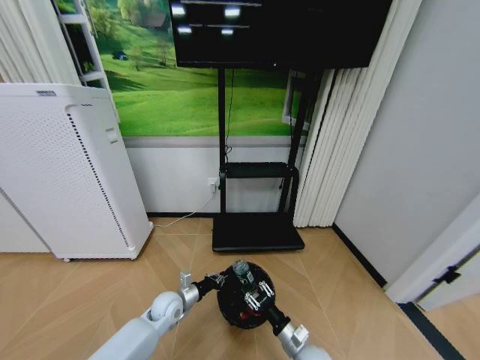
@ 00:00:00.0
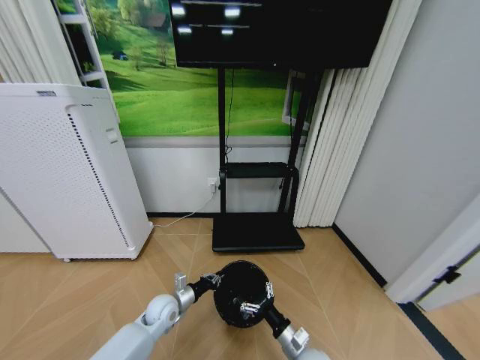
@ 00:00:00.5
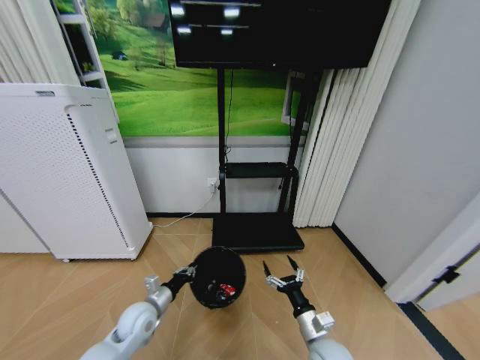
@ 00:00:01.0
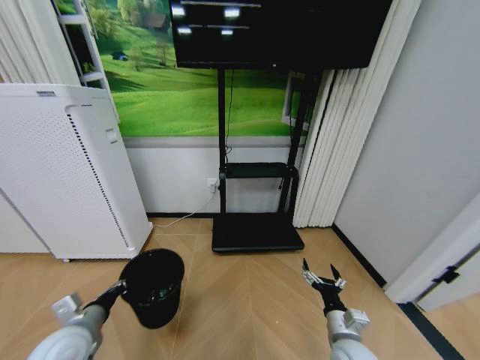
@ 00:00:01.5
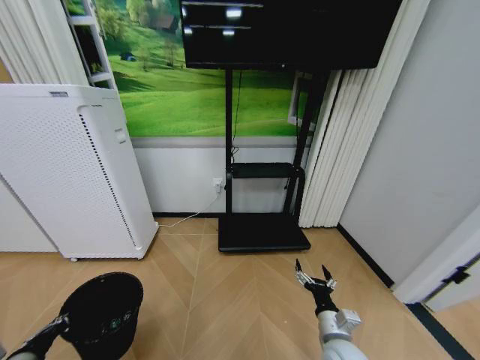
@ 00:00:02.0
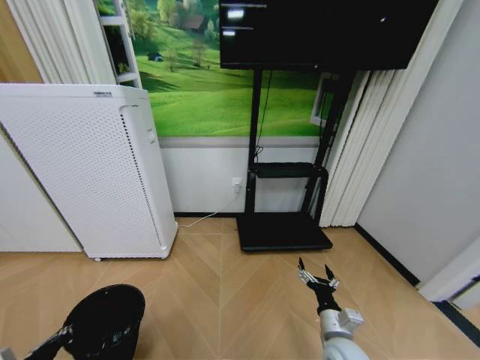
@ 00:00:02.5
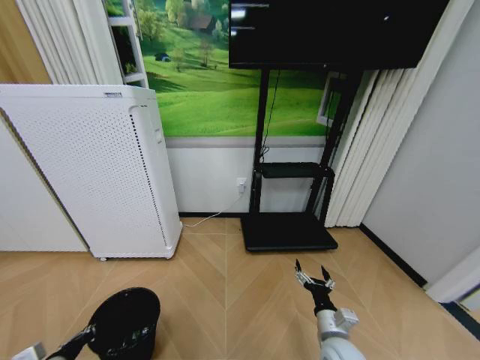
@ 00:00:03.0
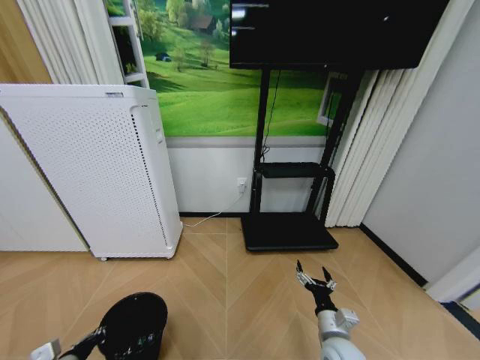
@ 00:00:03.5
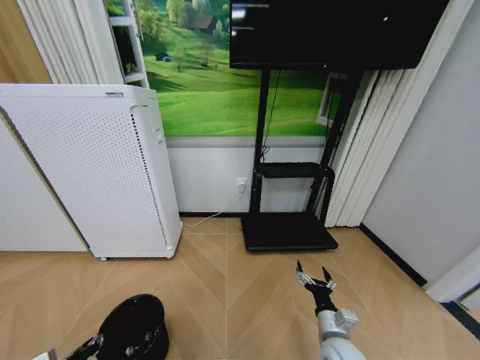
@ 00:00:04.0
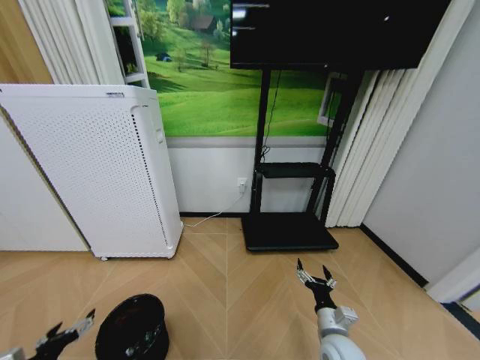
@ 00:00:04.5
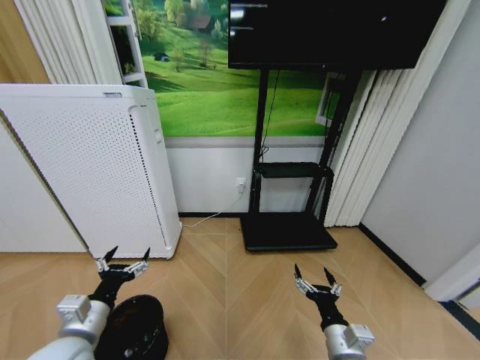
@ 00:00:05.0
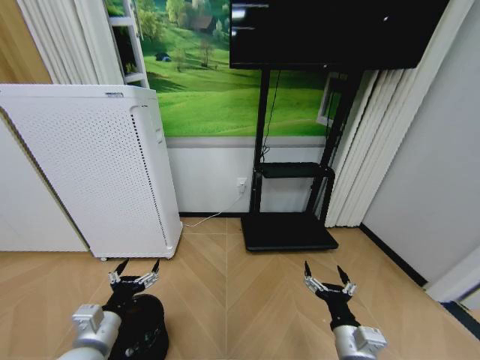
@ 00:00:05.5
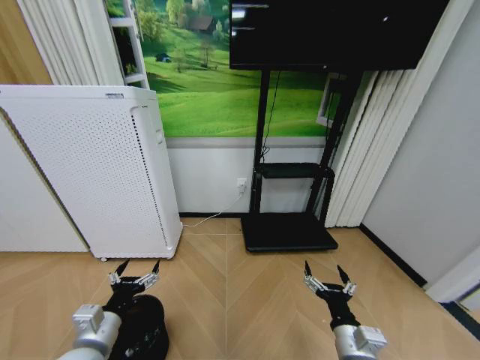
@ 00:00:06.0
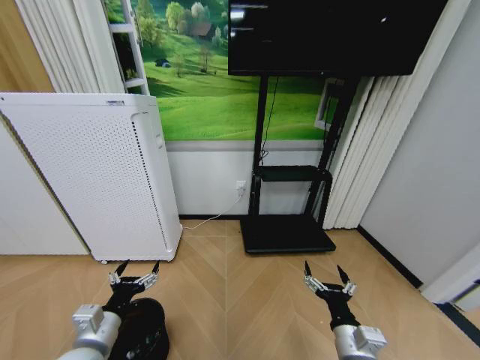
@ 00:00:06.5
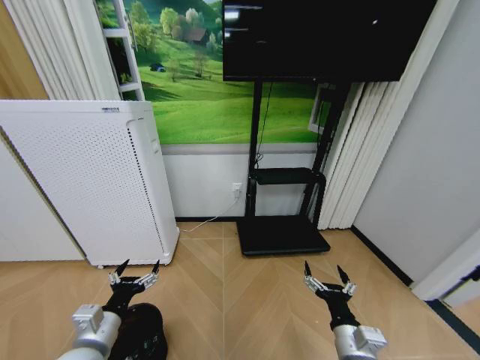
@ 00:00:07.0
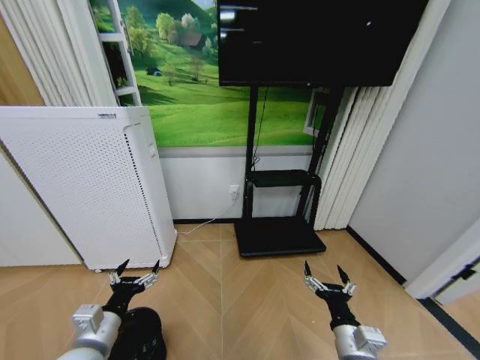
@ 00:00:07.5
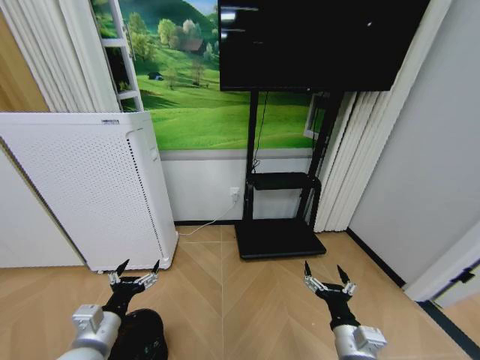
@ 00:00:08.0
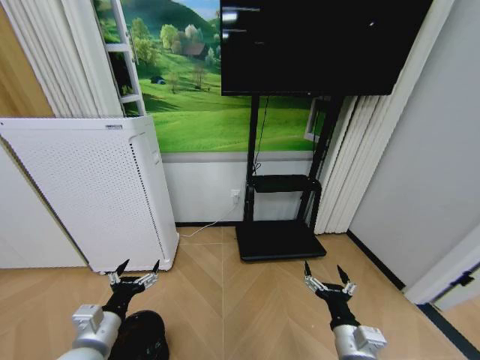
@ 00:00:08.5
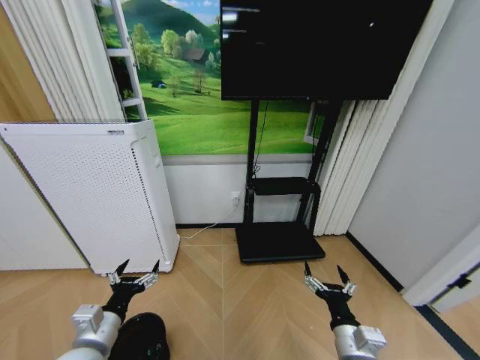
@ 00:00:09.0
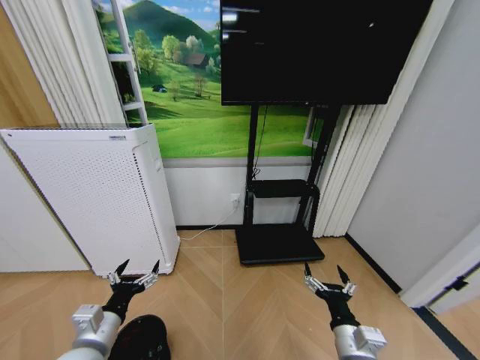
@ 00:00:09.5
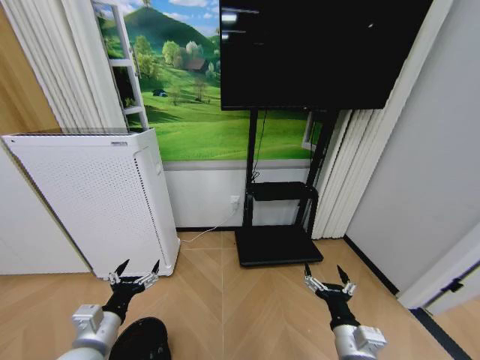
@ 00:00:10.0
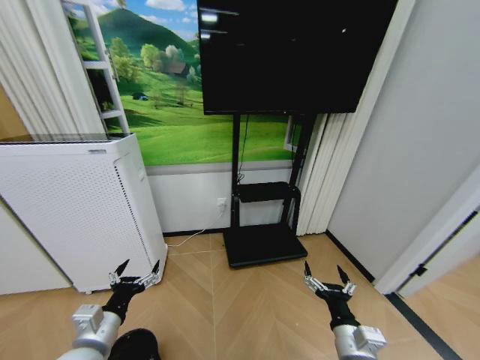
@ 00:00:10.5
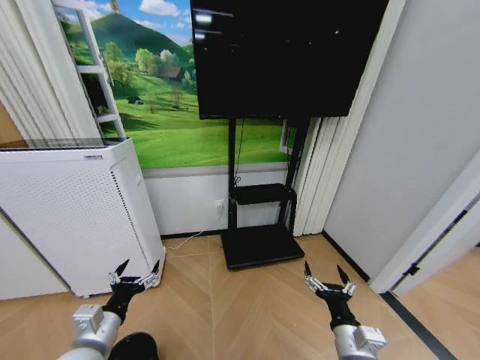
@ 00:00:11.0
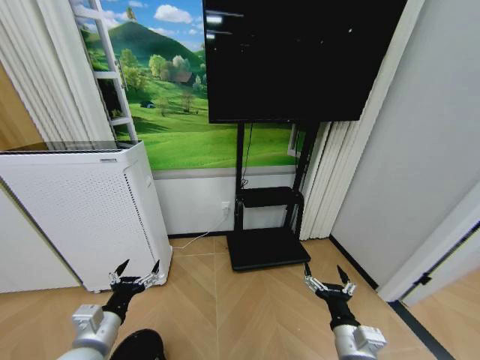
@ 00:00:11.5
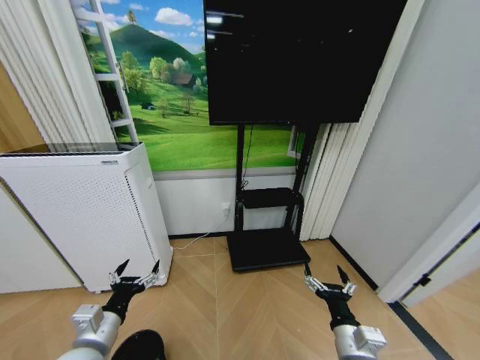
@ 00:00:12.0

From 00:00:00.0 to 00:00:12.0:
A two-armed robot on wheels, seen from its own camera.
Task of the whole recording: Pick up the trash bin and place the garbage on the floor into it.
From 00:00:00.0 to 00:00:02.0: The left gripper goes about 35 cm to the left, backward and upward, while the right gripper heads upward and to the right, covering roughly 10 cm, and opens.
From 00:00:02.0 to 00:00:04.0: The left gripper is displaced downward by approximately 10 cm.
From 00:00:04.0 to 00:00:06.0: The left gripper goes about 15 cm to the right and upward, and opens up. The right gripper moves upward and backward, roughly 10 cm.
From 00:00:08.0 to 00:00:10.0: The two grippers keep their place.
